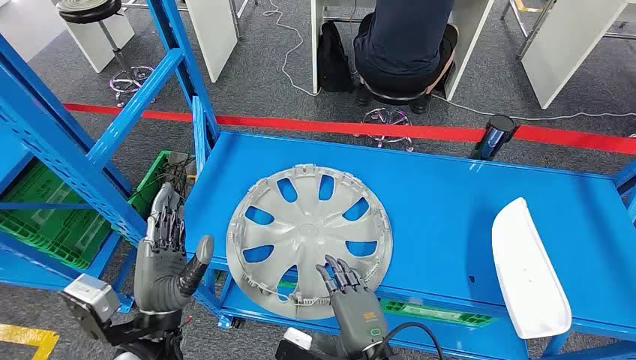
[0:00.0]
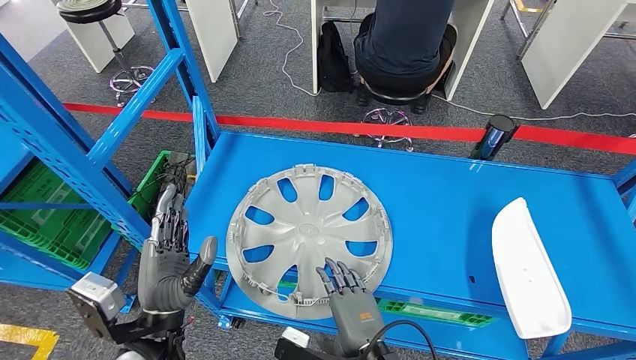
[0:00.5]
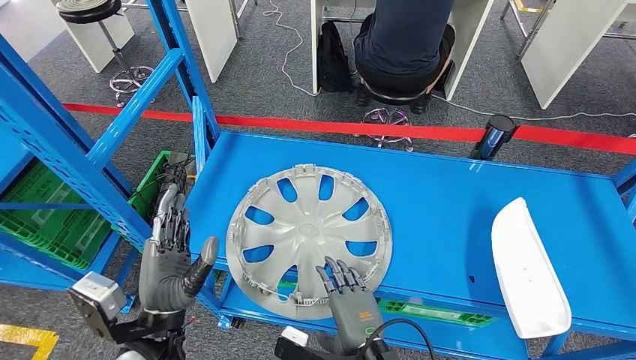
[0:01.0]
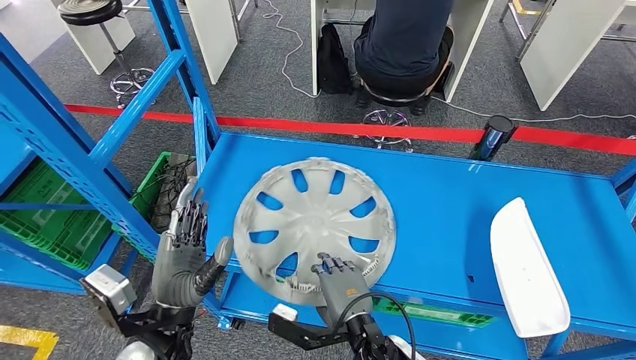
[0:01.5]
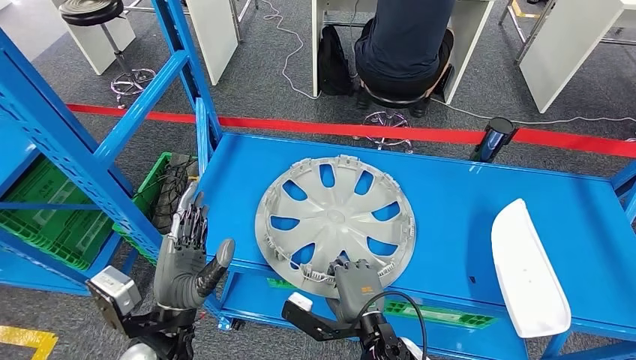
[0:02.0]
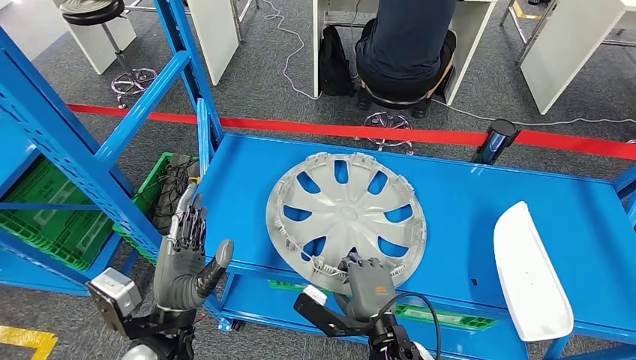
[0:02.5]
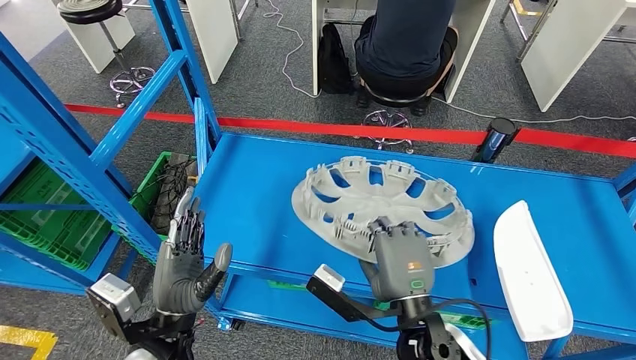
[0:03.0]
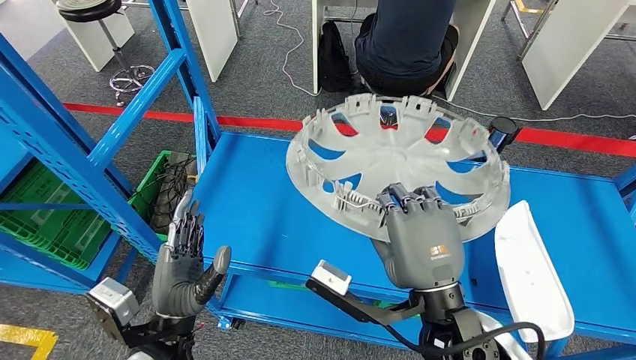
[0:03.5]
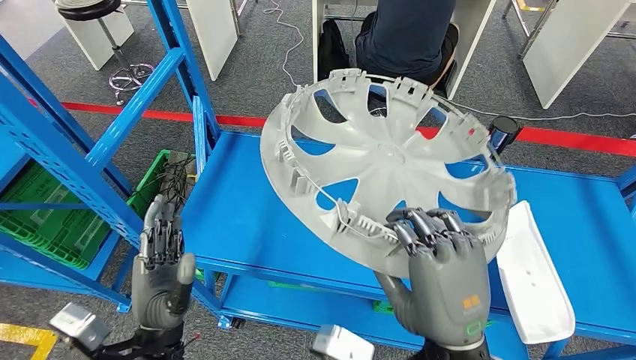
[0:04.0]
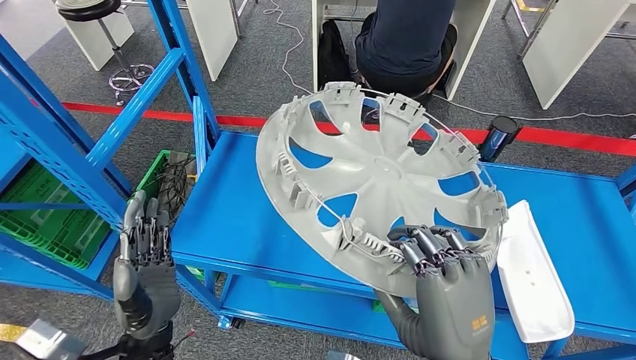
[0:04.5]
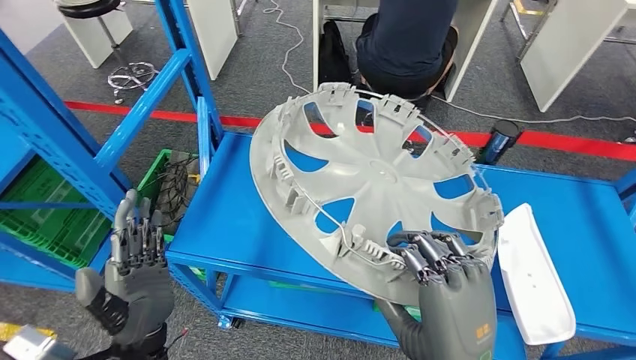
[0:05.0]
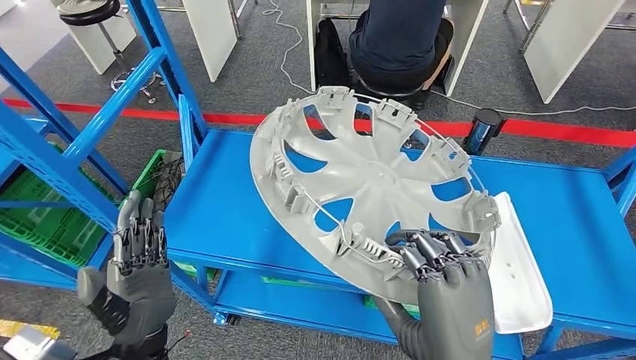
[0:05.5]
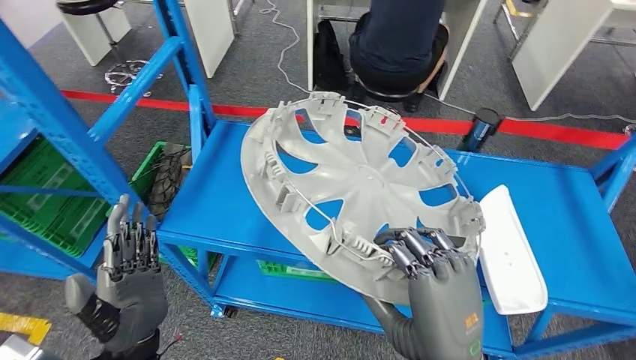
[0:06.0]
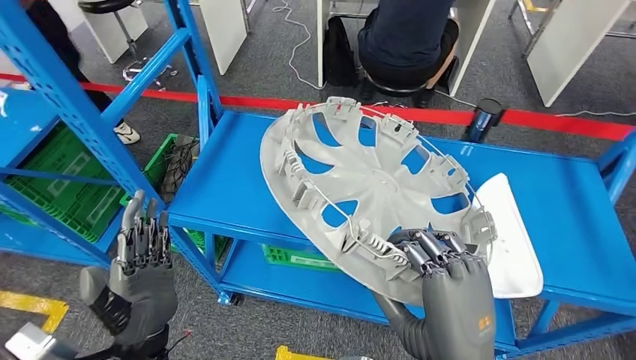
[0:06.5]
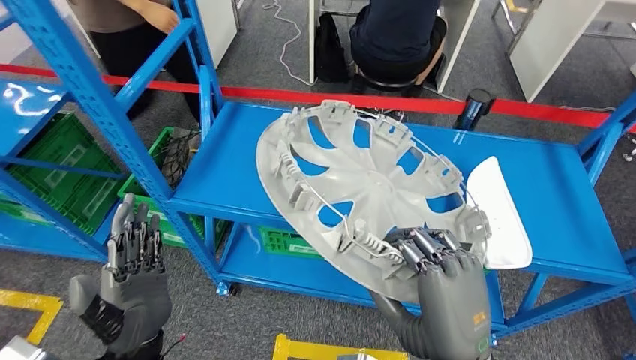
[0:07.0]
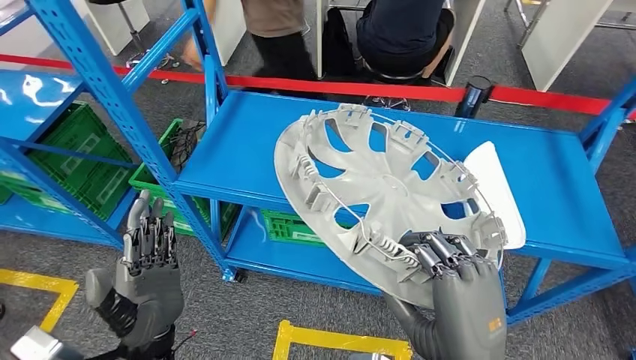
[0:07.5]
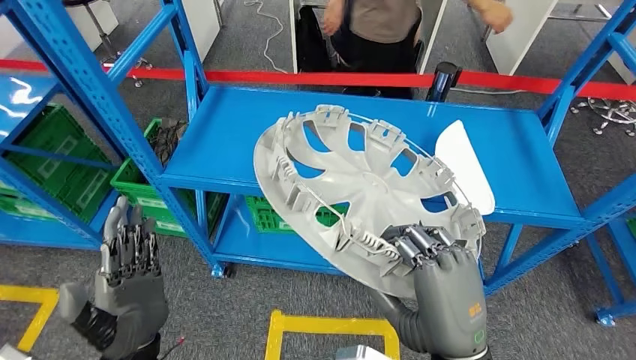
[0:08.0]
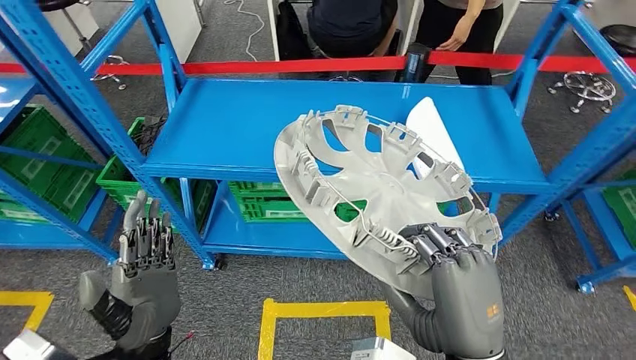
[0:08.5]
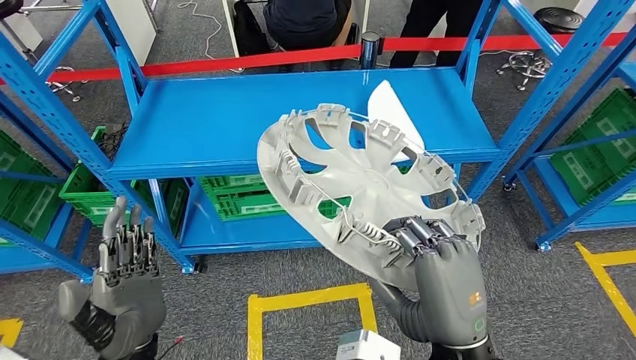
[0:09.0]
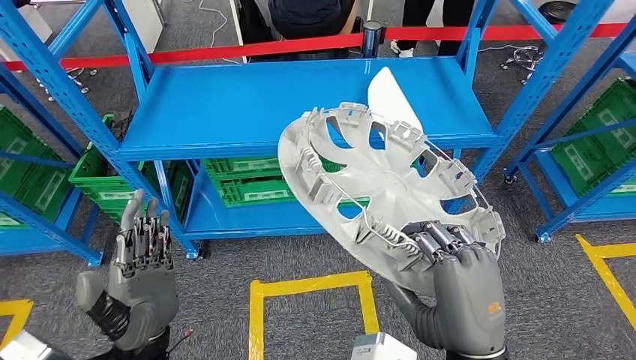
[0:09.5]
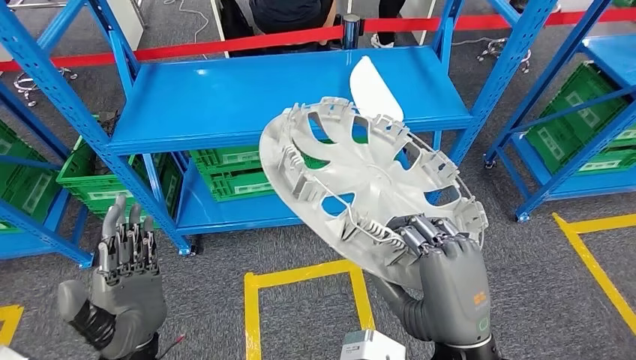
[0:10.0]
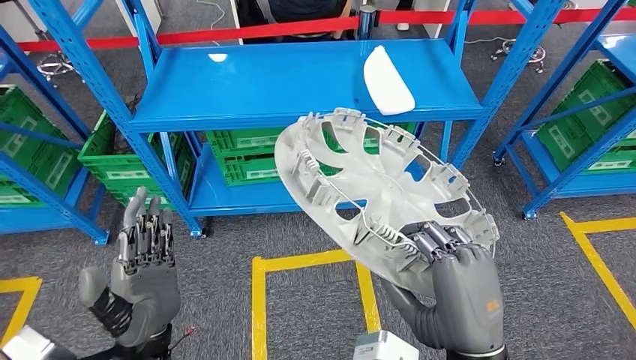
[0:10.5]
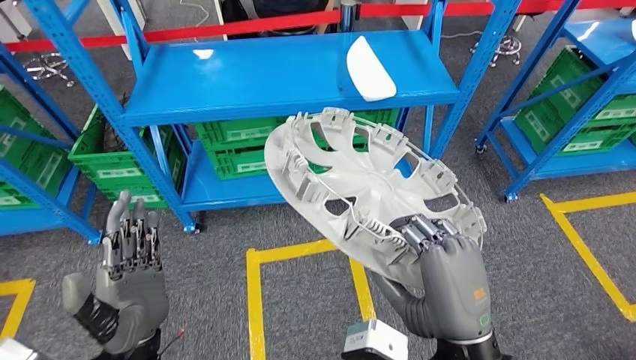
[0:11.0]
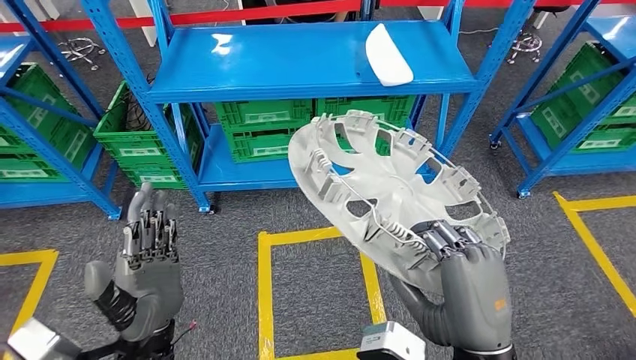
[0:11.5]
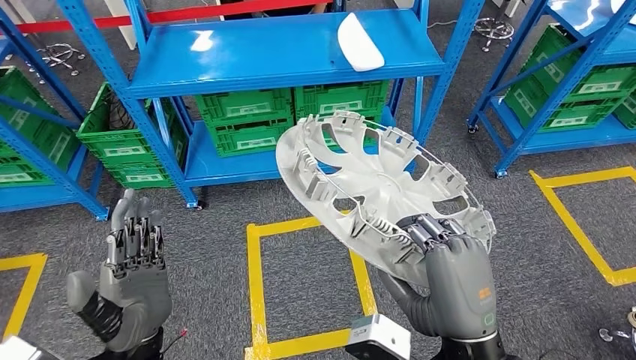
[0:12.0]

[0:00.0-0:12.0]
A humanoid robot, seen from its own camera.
Step, 0:00.0 to 0:06.0: Pick up the small component from the shelf.

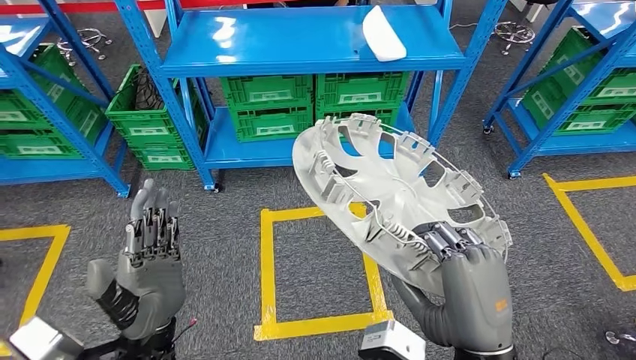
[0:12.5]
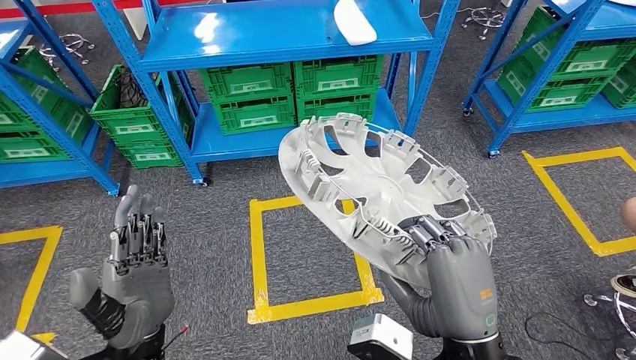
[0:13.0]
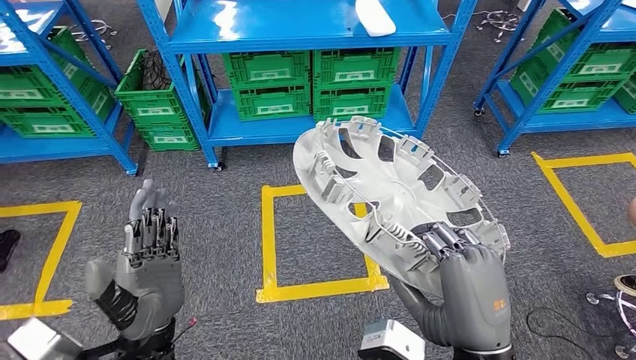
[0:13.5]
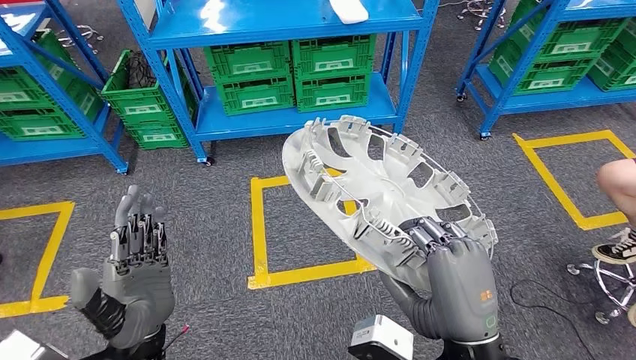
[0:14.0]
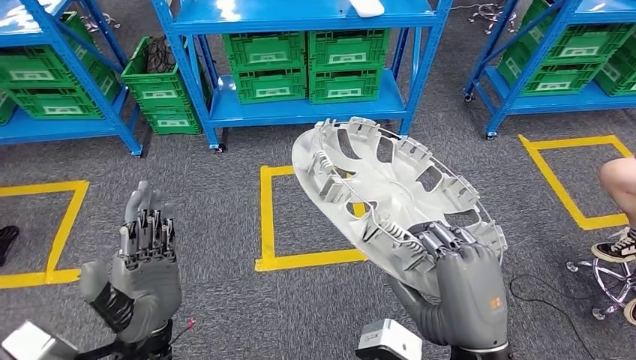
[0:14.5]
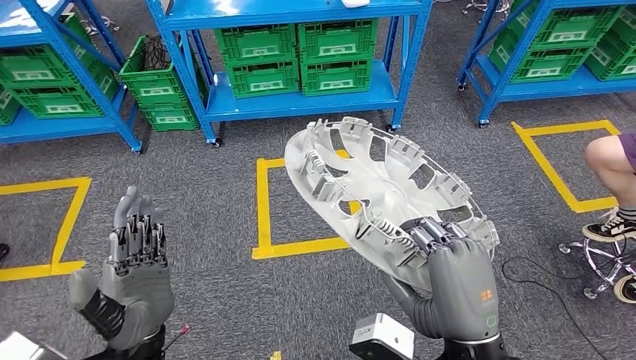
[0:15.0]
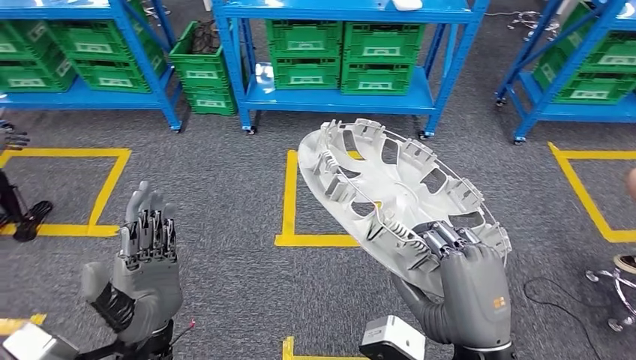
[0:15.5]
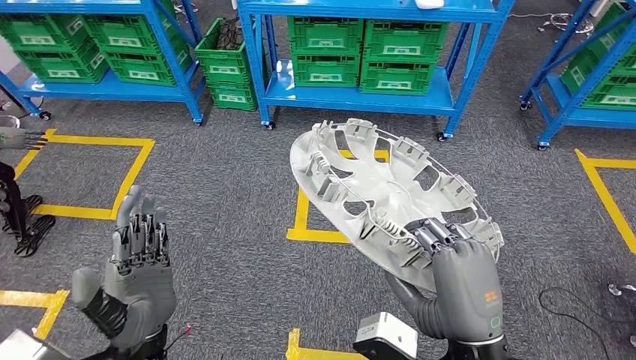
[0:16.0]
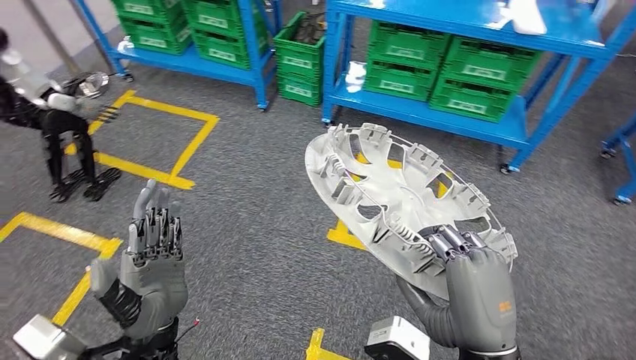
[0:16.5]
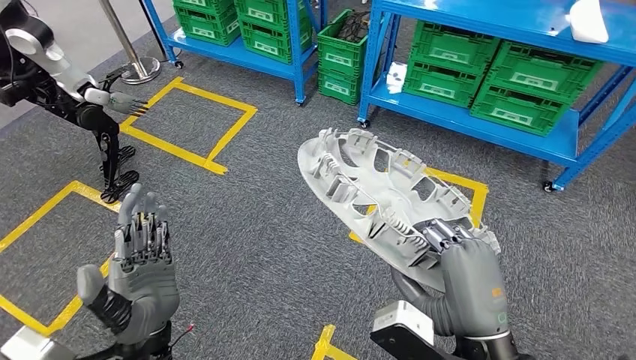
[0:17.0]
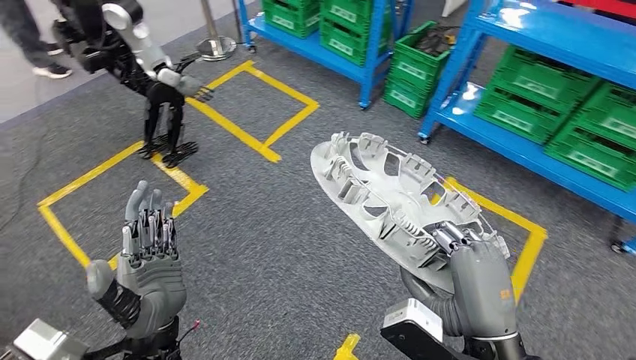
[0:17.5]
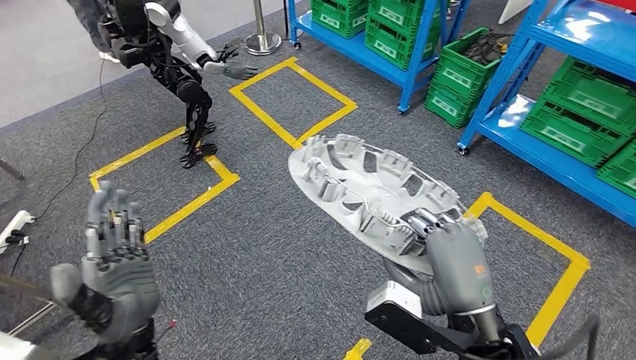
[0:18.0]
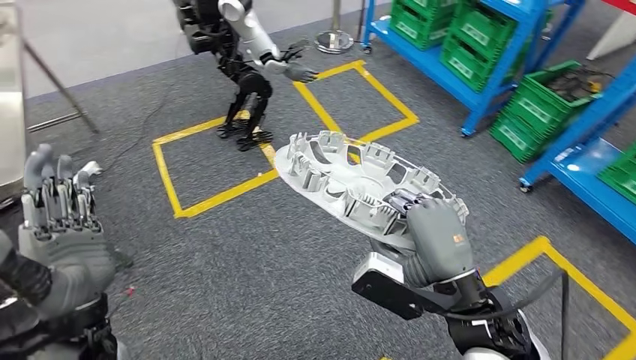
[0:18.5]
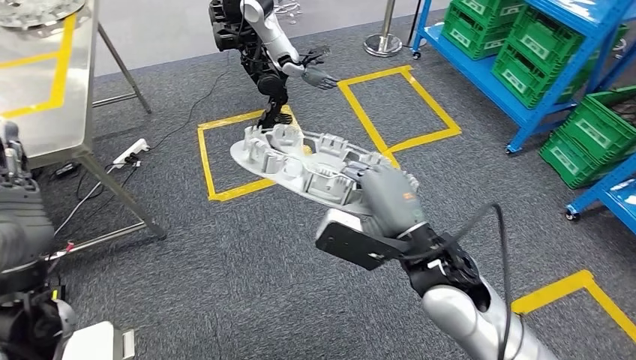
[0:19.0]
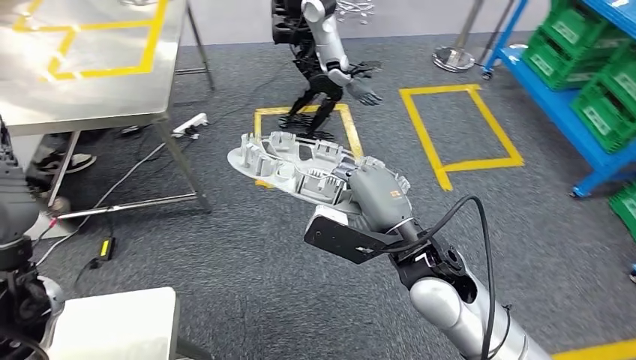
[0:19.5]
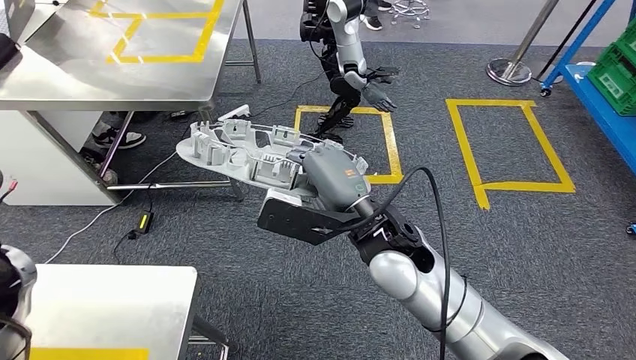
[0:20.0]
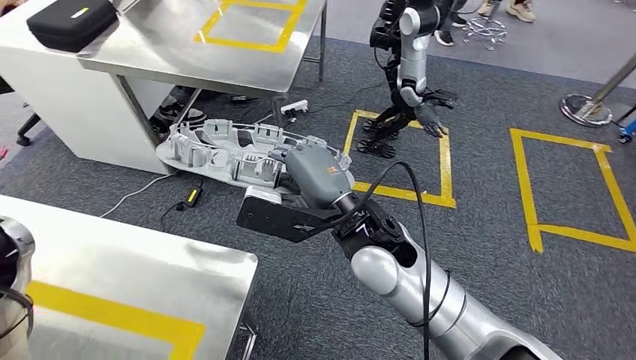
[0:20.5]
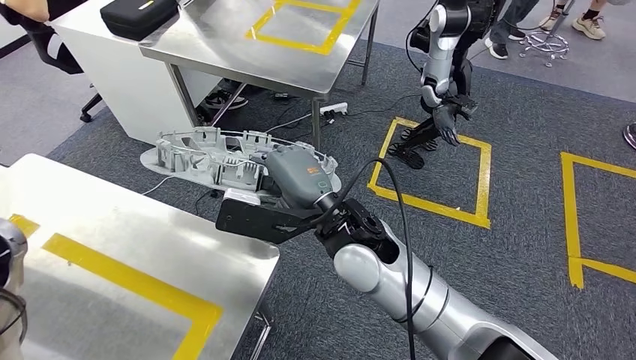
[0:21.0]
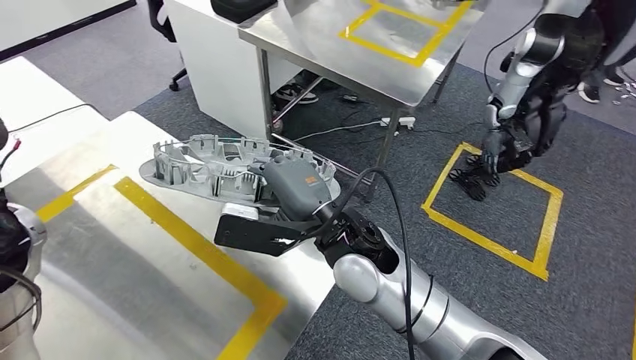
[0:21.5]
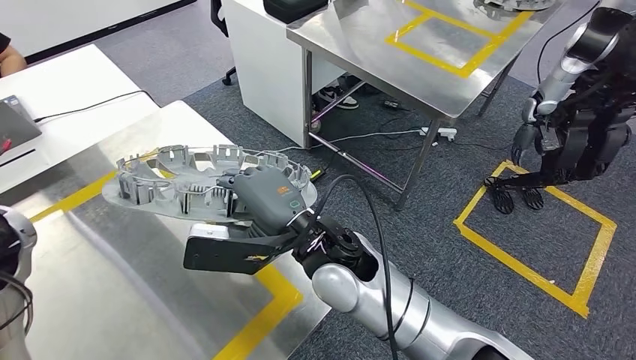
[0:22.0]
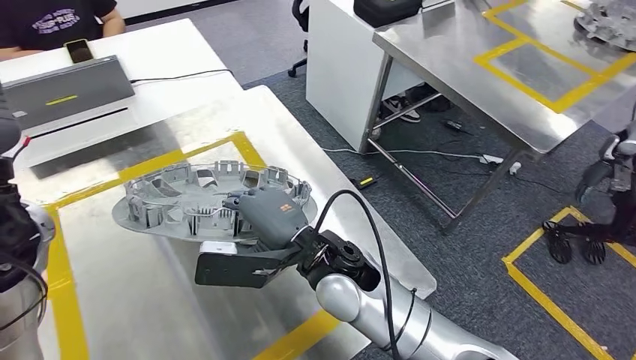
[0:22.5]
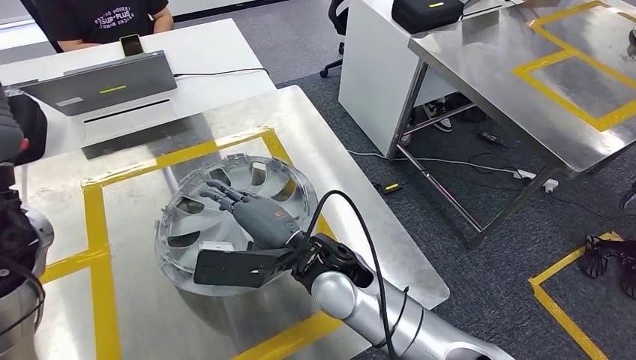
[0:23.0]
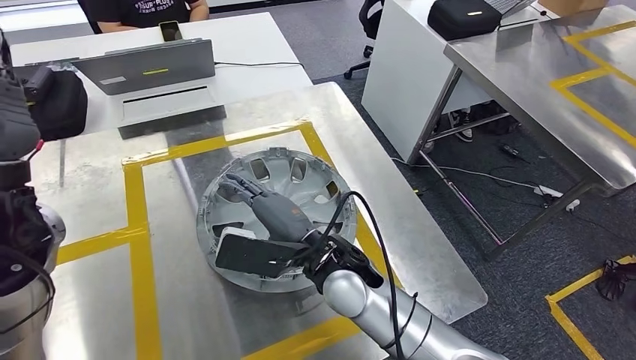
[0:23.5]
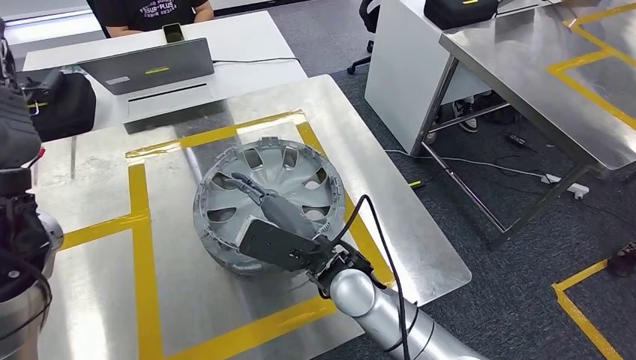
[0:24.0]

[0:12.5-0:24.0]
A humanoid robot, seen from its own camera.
Step, 0:12.5 to 0:19.5: Move the small component to the workbench.
